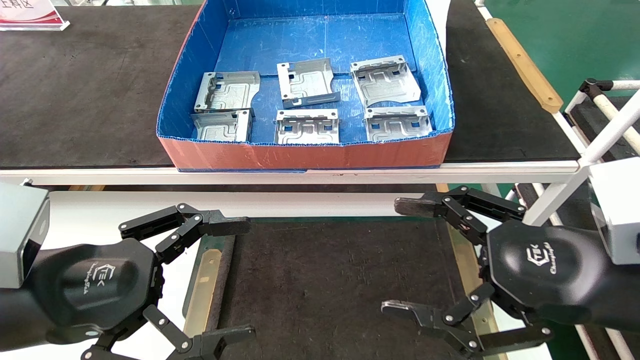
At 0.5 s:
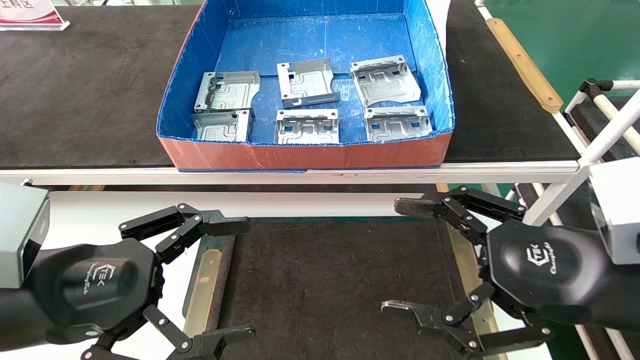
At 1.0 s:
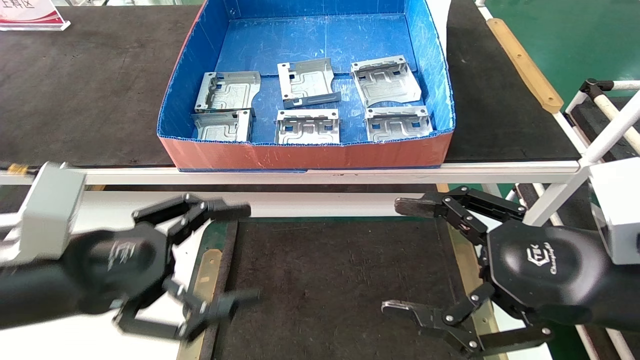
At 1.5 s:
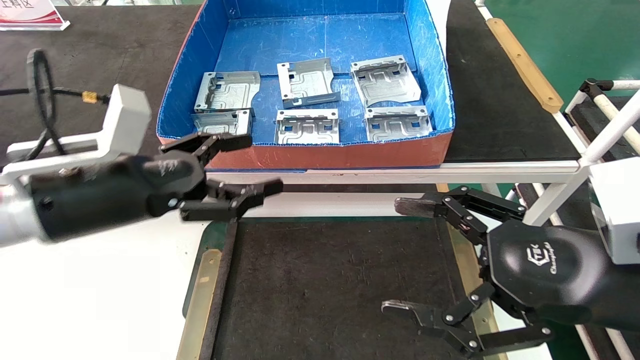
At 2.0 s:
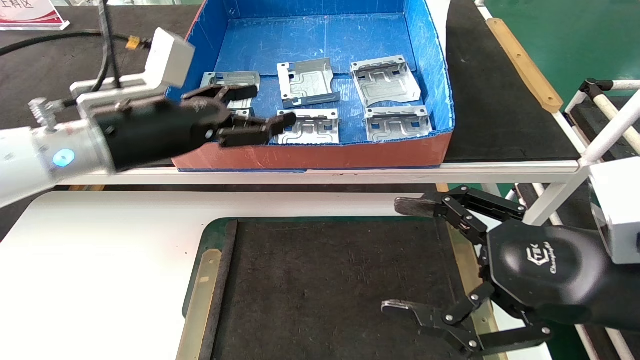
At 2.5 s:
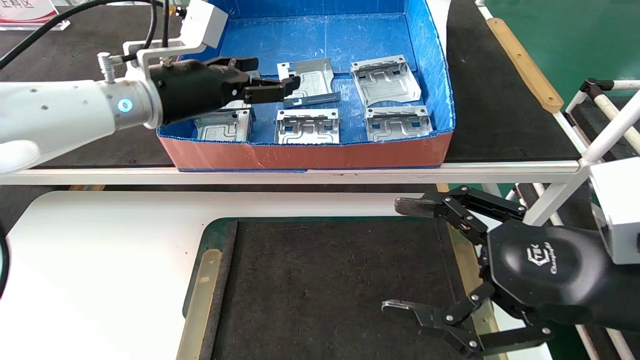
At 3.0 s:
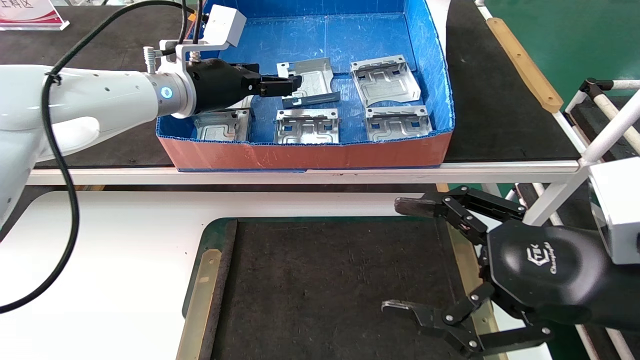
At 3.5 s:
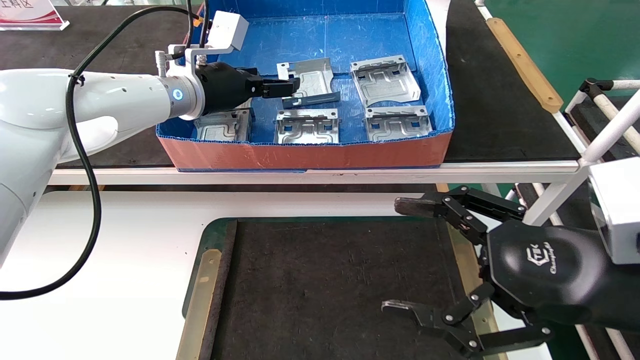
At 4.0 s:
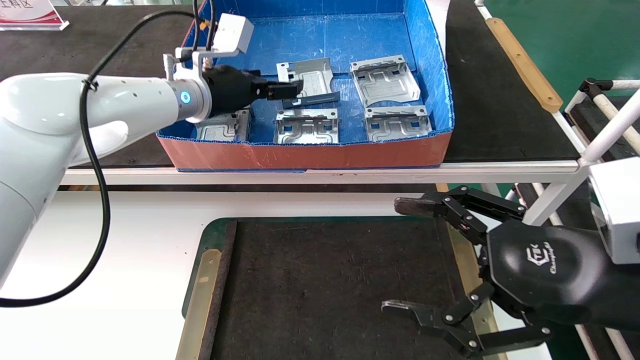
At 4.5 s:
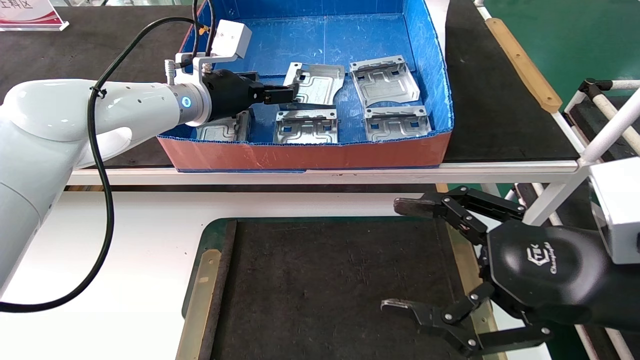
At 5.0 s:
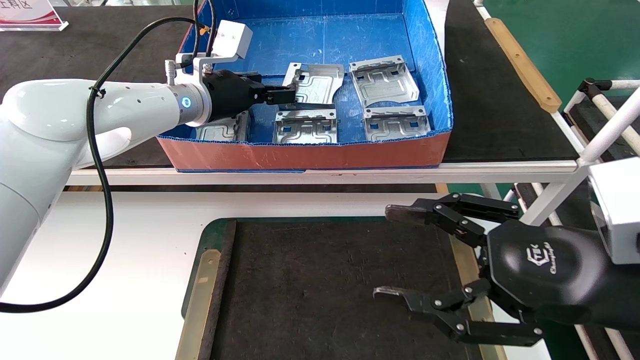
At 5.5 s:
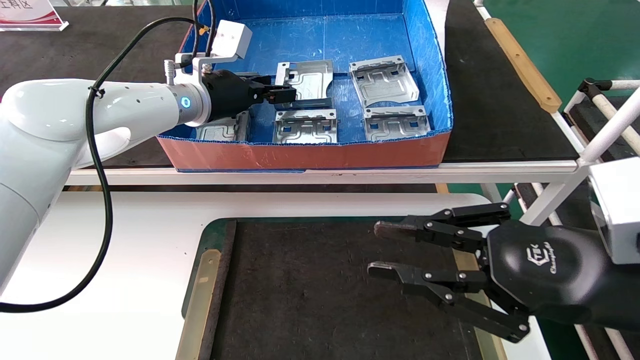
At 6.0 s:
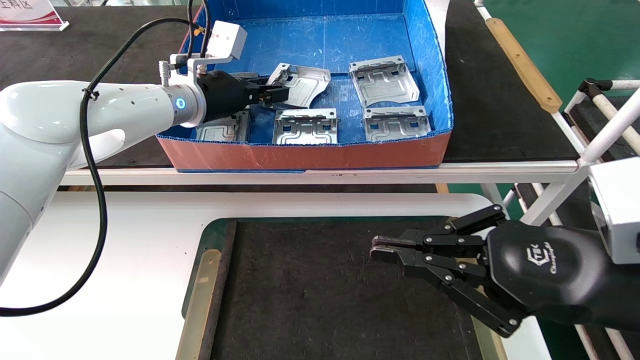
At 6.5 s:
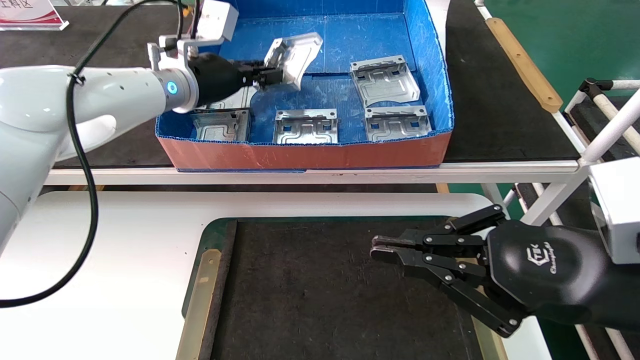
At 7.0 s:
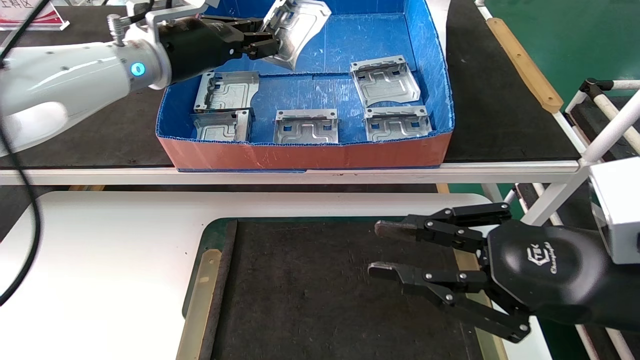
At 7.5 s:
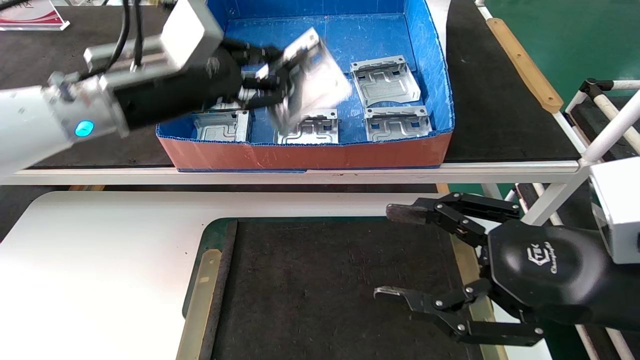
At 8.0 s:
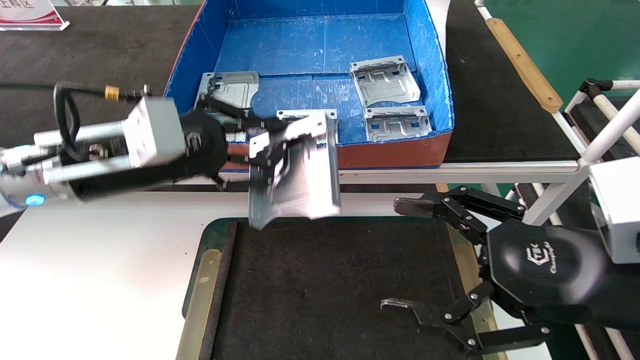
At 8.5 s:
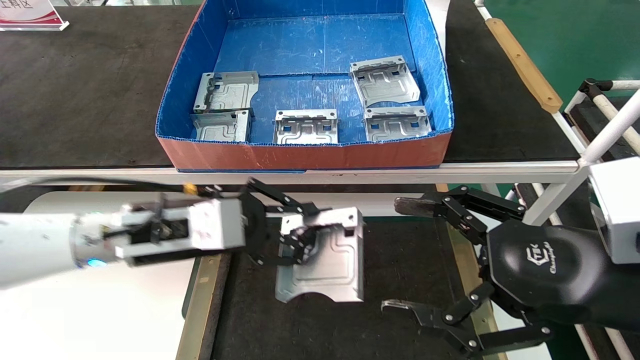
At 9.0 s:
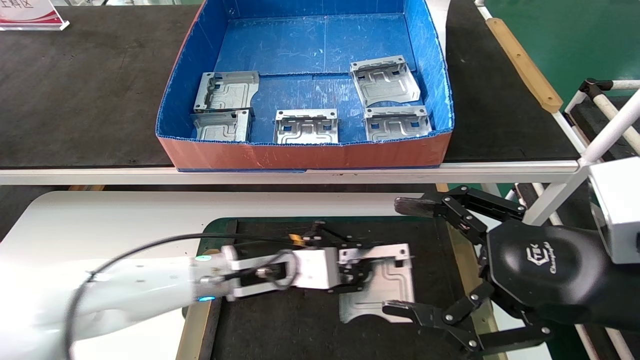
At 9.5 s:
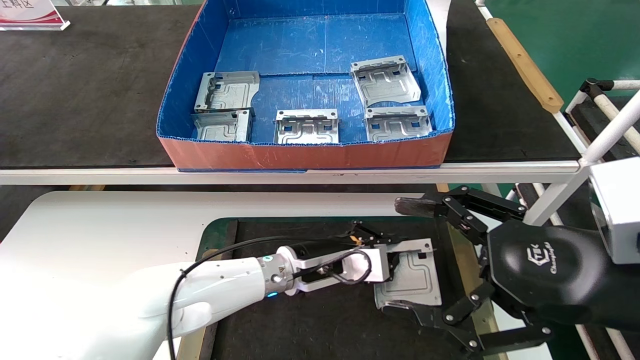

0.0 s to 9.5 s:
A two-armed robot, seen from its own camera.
Task of the whole recording: take the accessories out of the box and place them on the table.
Step, 1.5 to 5.5 s: Pick up the hard drive bracket from the feeding area.
0.0 to 2.0 s: The left gripper moves forward and upward, roughly 20 cm.
2.0 to 4.0 s: The left gripper goes some 15 cm forward and to the right.
4.0 to 5.5 s: The right gripper closes its fingers, while the left gripper closes its fingers.
5.5 to 7.5 s: The right gripper closes, then opens again. Meanwhile the left gripper travels backward by some 10 cm, and closes its fingers.
7.5 to 9.5 s: The right gripper opens its fingers, while the left gripper is displaced downward and to the right by about 30 cm.

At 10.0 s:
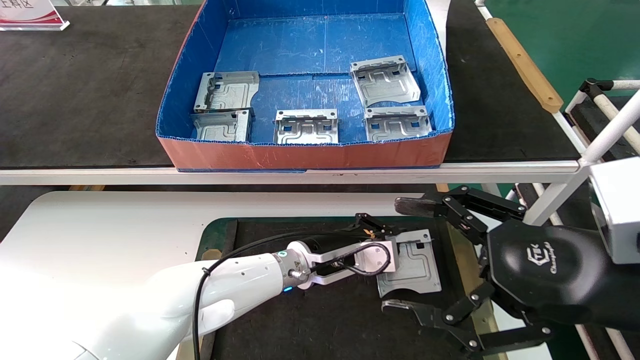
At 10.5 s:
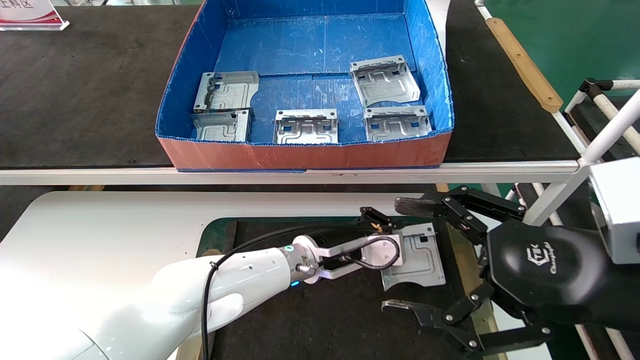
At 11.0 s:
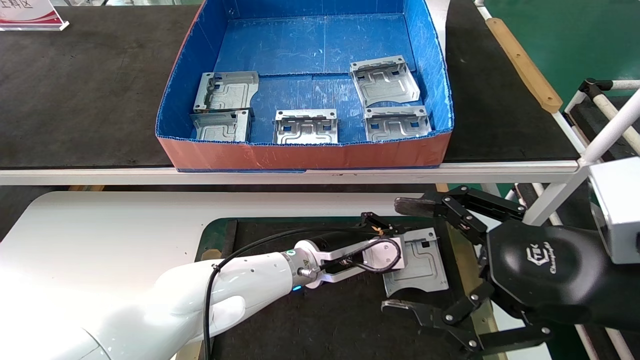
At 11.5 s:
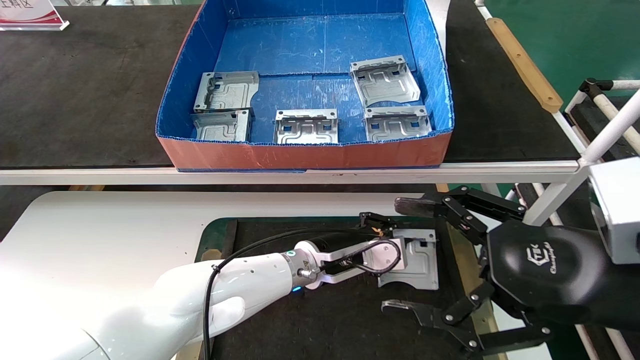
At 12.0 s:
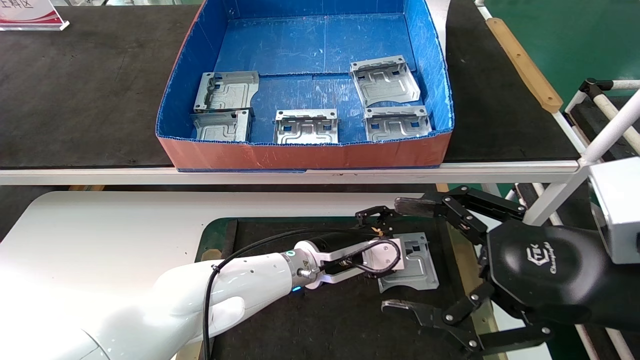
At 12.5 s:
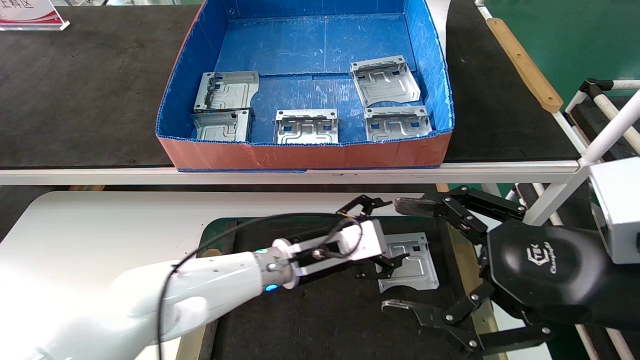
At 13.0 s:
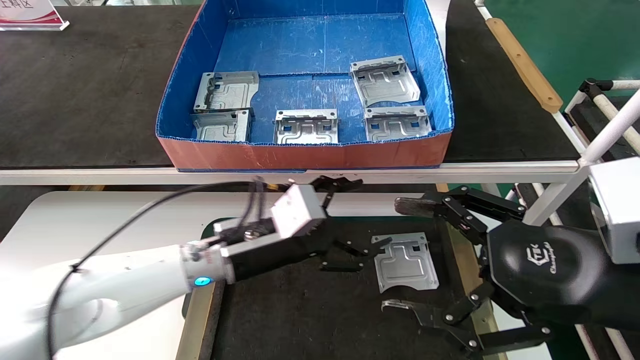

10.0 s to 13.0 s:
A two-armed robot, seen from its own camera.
Task of the whole recording: take the accessories out of the box and place them on the table.
Step, 10.0 to 12.0 s: Place the hard drive bracket into the box.
10.0 to 11.5 s: Neither gripper changes place.
11.5 to 13.0 s: The left gripper heads to the left and backward, covering approximately 10 cm, and opens.
